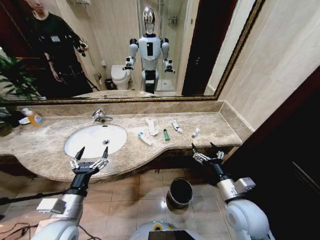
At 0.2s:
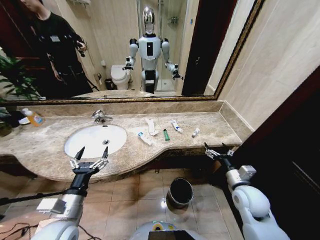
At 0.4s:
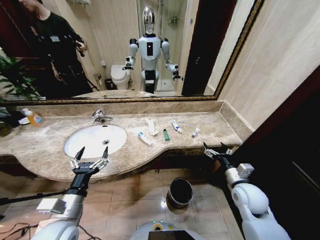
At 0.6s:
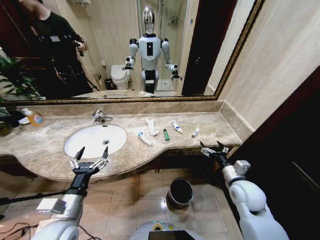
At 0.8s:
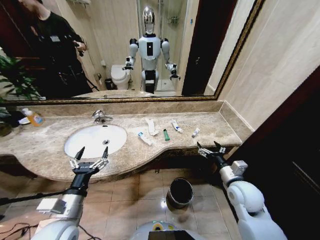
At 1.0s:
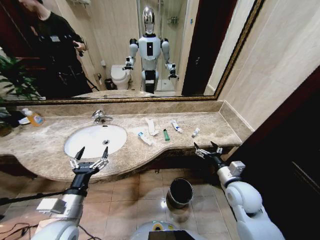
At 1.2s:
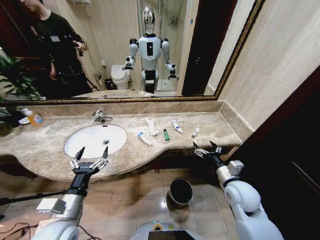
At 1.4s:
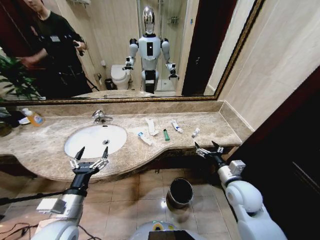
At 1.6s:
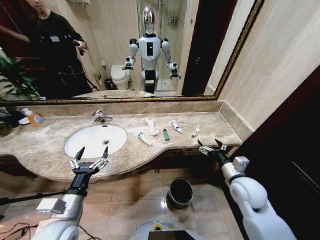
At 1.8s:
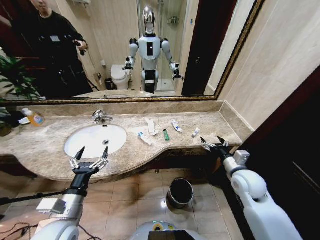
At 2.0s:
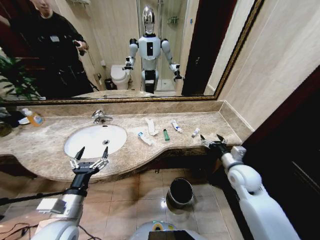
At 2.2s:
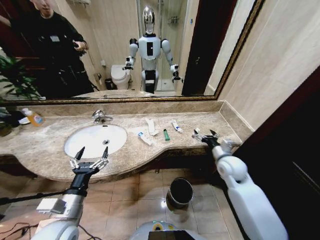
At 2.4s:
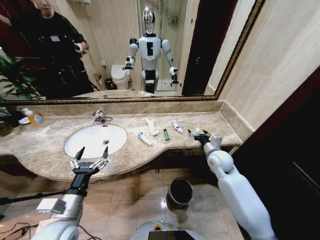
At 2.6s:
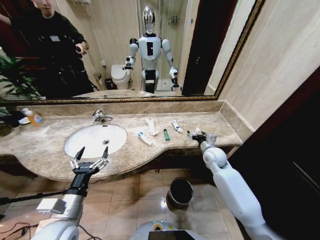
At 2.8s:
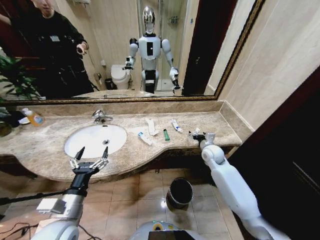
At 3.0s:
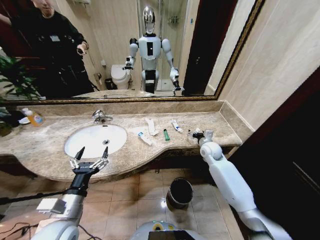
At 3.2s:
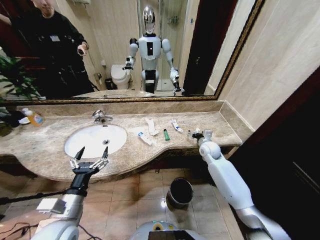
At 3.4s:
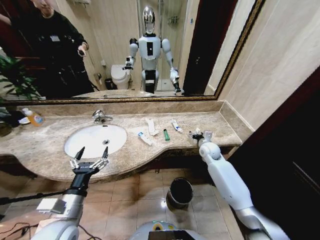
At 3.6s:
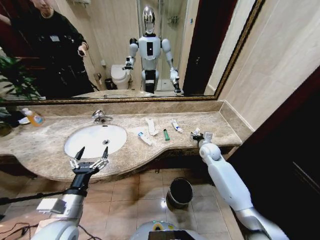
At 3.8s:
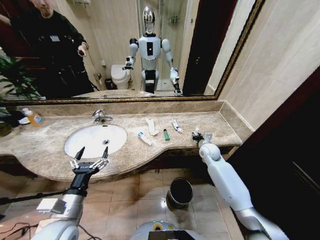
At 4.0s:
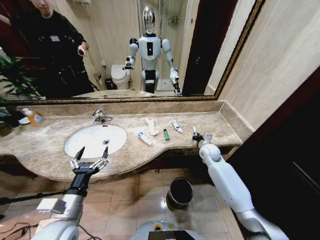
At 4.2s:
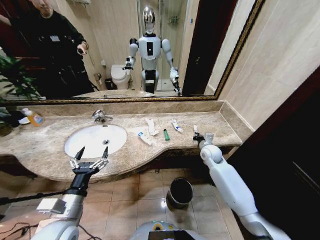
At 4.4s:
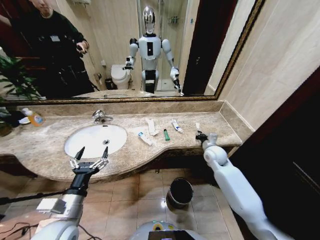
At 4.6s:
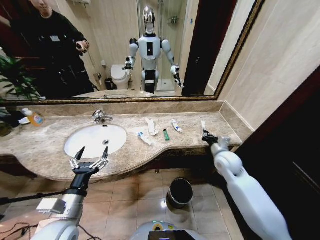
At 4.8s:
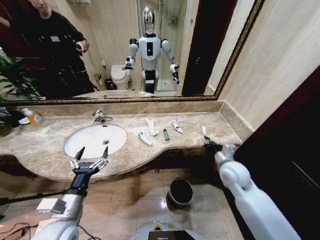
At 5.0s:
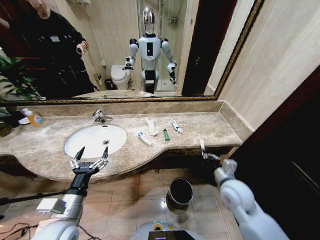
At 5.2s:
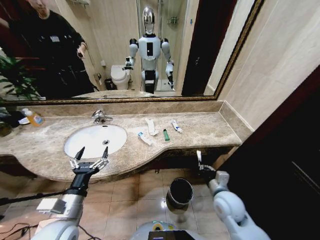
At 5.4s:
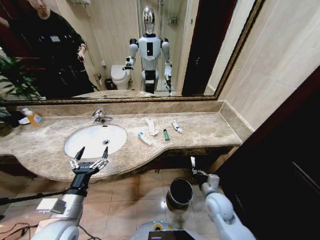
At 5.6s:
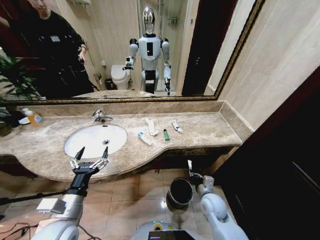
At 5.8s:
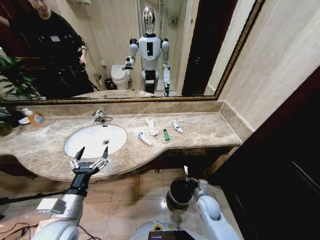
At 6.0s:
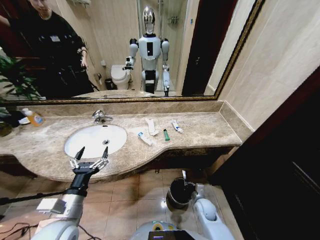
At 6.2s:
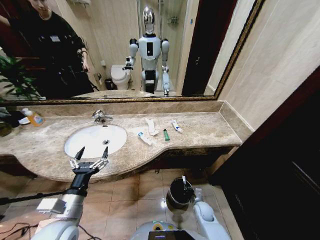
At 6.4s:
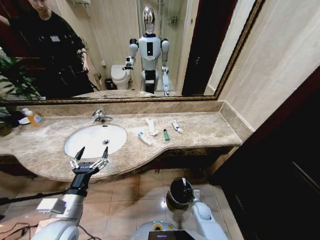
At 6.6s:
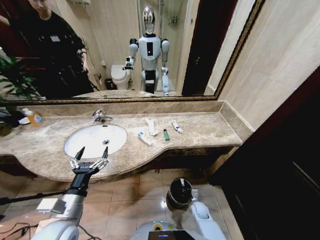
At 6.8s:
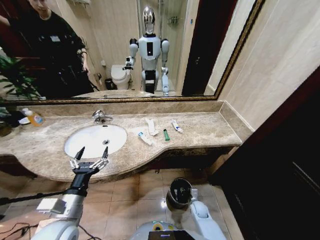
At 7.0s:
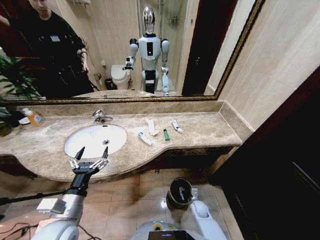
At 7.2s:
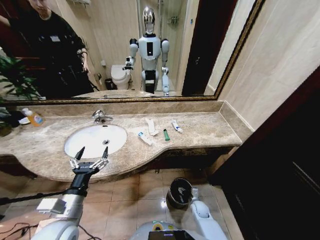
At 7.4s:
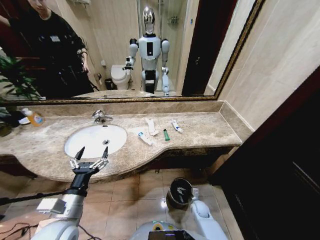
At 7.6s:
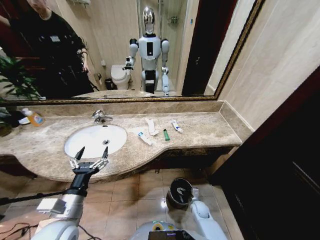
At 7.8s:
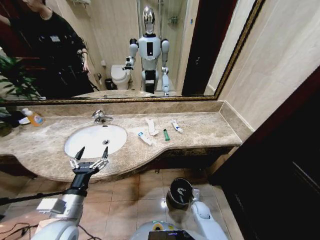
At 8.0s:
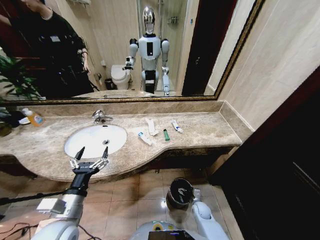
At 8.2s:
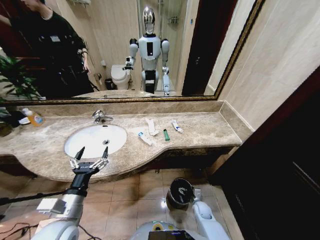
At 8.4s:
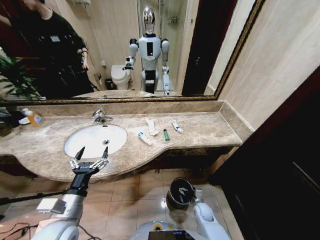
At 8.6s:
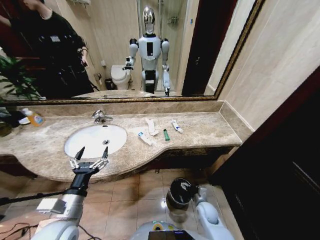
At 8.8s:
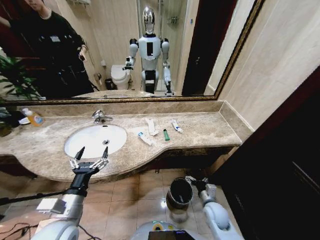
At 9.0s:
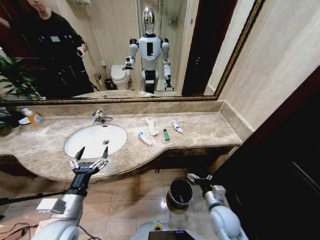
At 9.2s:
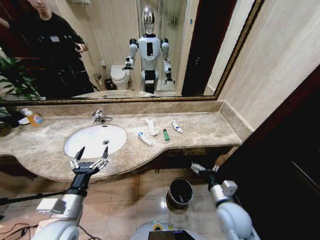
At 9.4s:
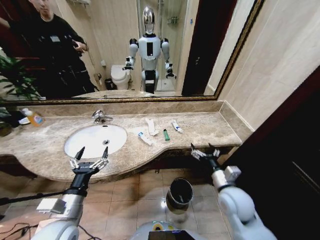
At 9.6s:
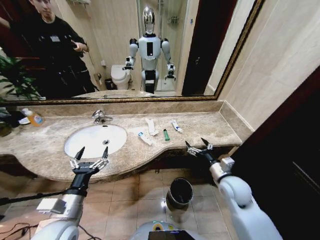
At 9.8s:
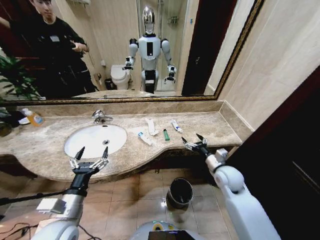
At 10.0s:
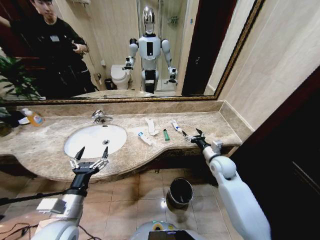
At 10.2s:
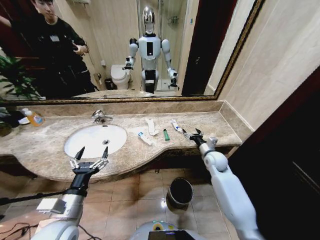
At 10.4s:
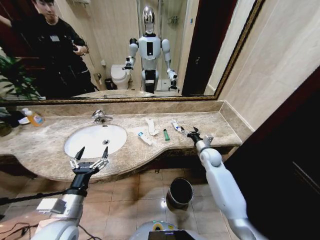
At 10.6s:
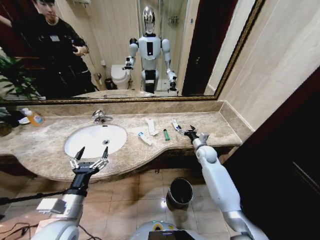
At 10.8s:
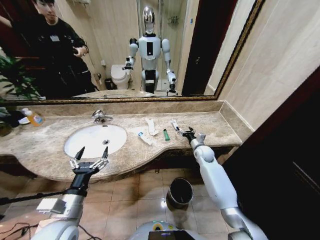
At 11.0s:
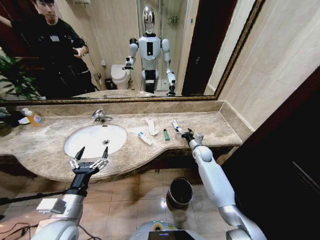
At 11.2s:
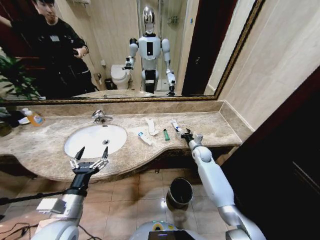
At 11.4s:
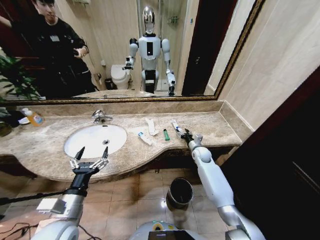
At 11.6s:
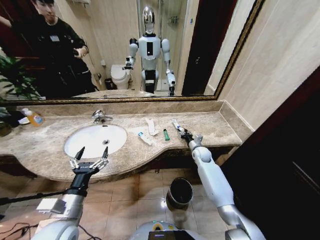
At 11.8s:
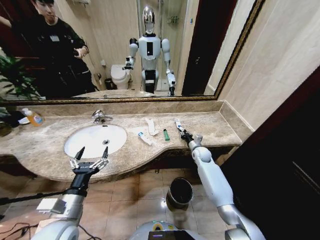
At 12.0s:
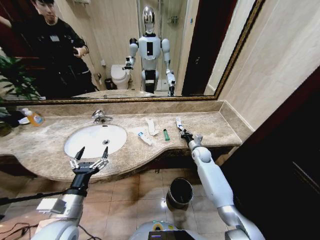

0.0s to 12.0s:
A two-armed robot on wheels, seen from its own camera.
Task of the whole recording: Pick up the trash from the sink and place it in the trash bin.
1.6s to 3.0s: The right gripper heads forward, covering about 20 cm.
3.0s to 4.4s: The right gripper closes its fingers.
4.4s to 6.0s: The right gripper is displaced downward and backward by roughly 30 cm.
6.0s to 7.6s: The right gripper moves downward, roughly 10 cm, and opens up.
7.6s to 9.0s: The right gripper moves upward, some 20 cm.
9.0s to 10.4s: The right gripper is displaced forward by approximately 25 cm.
10.4s to 12.0s: The right gripper ends up about 5 cm from where it was, and closes.

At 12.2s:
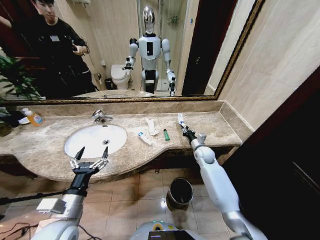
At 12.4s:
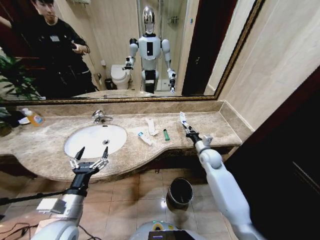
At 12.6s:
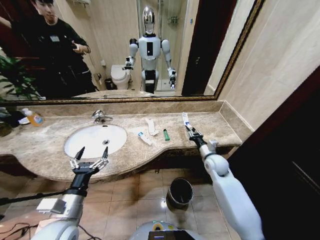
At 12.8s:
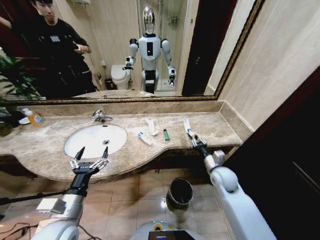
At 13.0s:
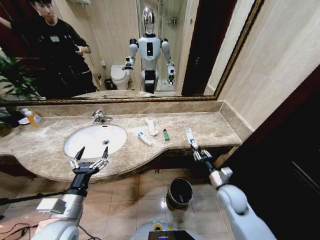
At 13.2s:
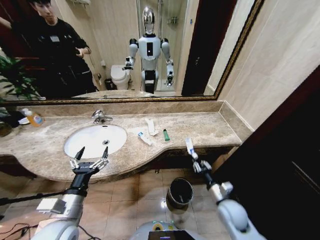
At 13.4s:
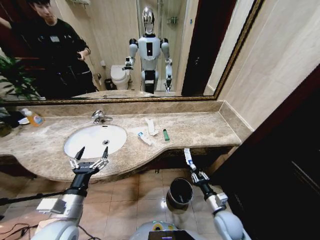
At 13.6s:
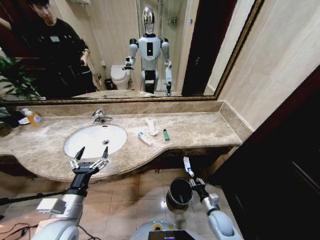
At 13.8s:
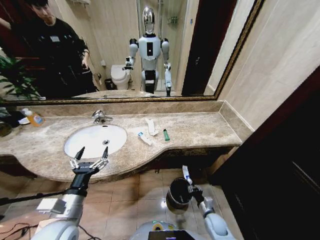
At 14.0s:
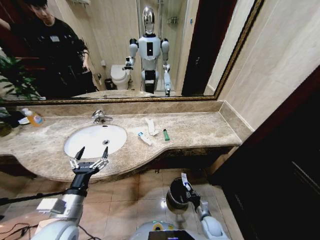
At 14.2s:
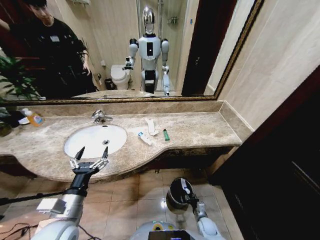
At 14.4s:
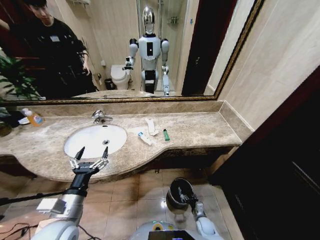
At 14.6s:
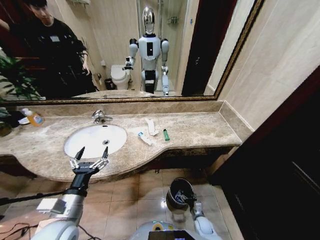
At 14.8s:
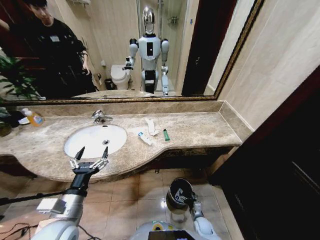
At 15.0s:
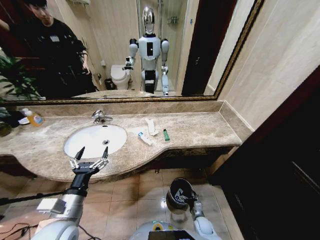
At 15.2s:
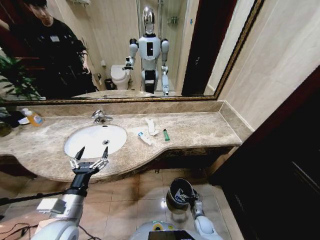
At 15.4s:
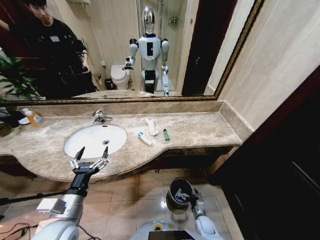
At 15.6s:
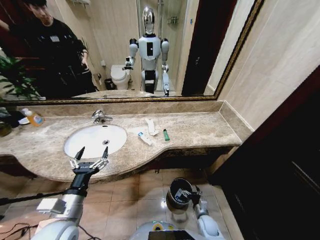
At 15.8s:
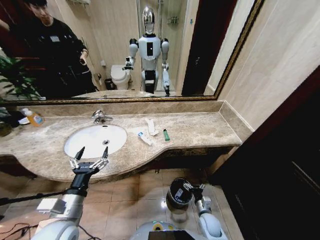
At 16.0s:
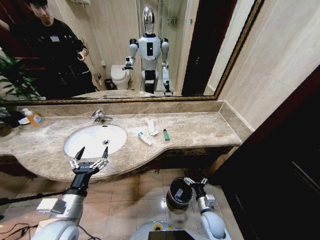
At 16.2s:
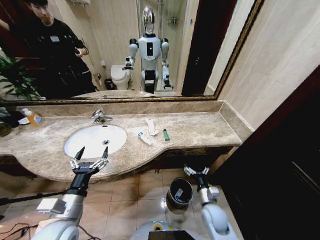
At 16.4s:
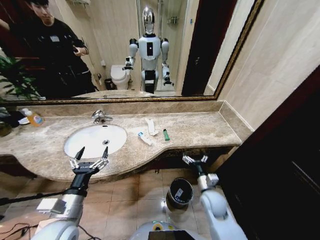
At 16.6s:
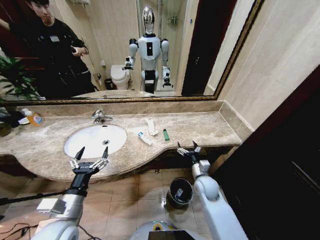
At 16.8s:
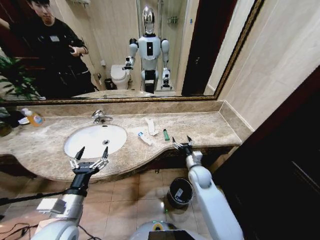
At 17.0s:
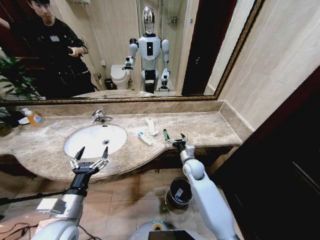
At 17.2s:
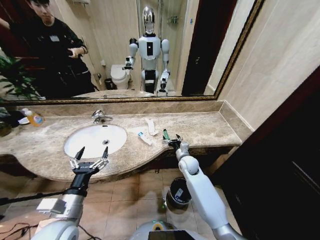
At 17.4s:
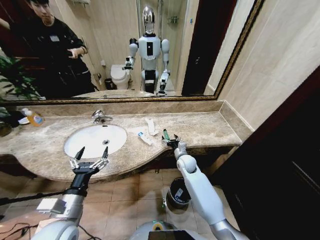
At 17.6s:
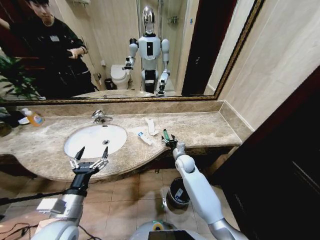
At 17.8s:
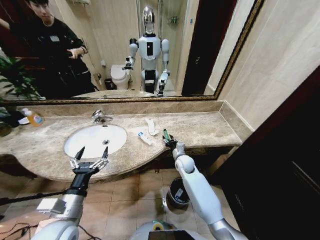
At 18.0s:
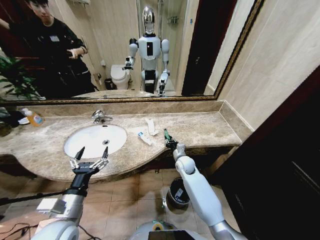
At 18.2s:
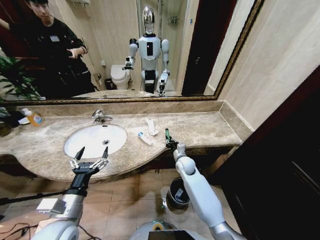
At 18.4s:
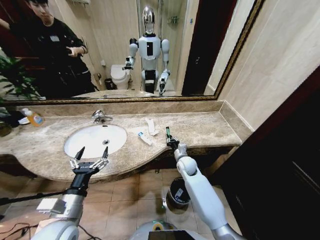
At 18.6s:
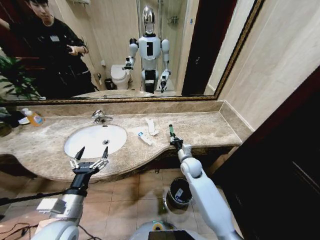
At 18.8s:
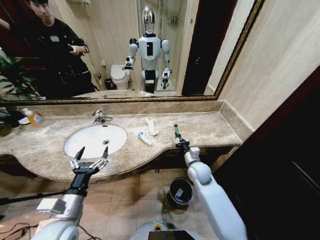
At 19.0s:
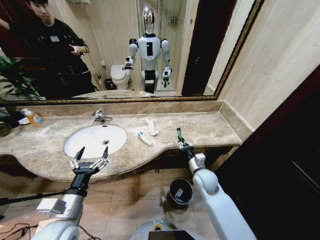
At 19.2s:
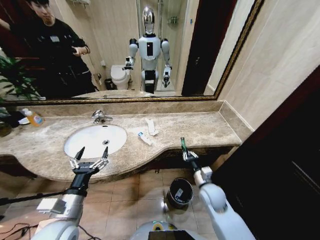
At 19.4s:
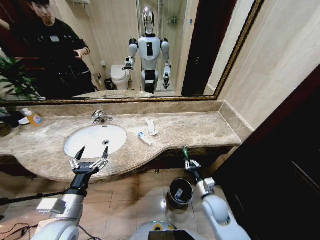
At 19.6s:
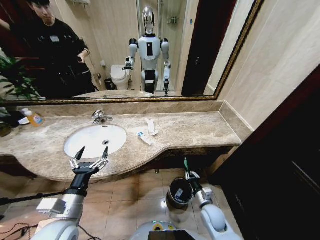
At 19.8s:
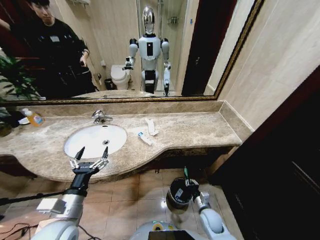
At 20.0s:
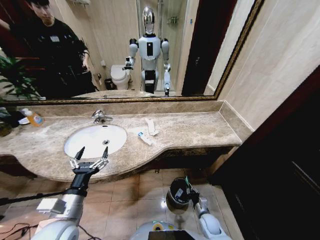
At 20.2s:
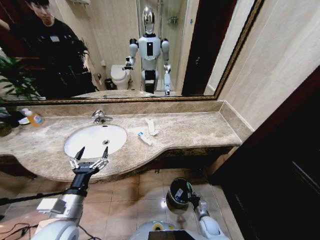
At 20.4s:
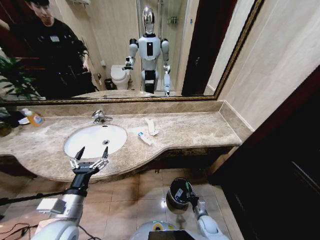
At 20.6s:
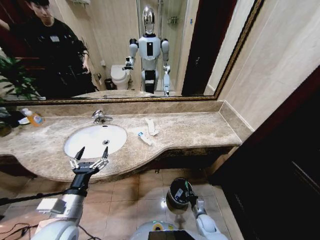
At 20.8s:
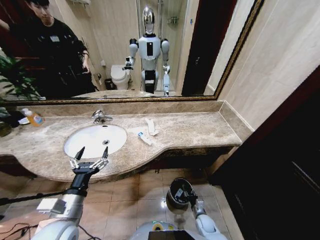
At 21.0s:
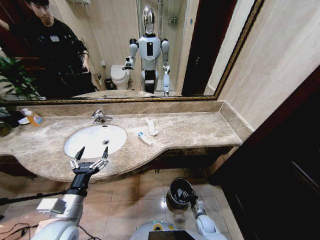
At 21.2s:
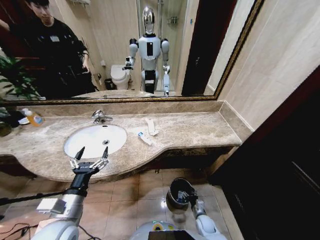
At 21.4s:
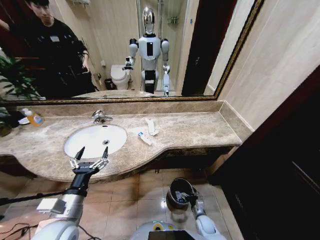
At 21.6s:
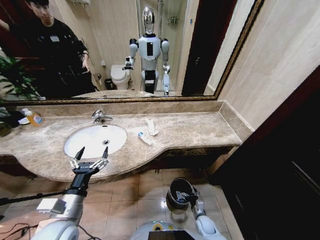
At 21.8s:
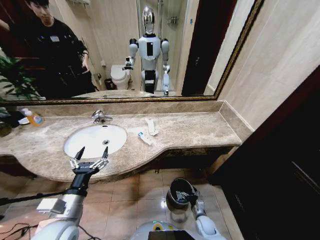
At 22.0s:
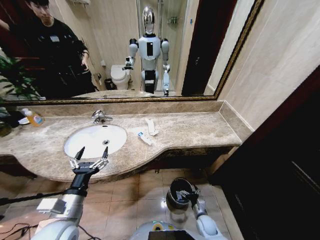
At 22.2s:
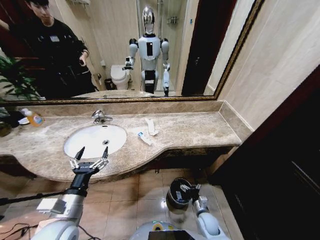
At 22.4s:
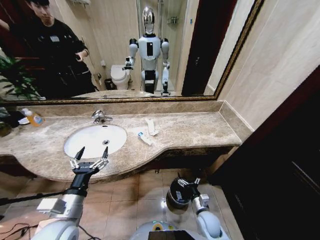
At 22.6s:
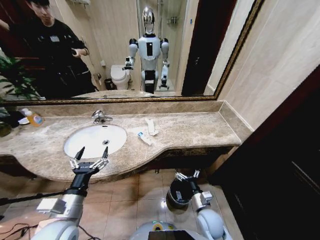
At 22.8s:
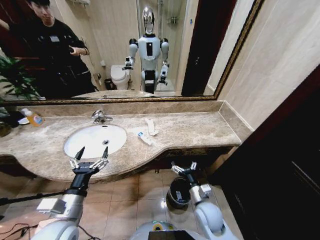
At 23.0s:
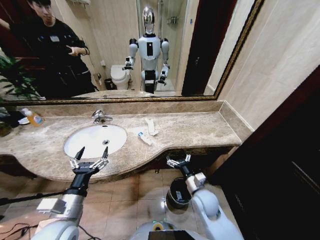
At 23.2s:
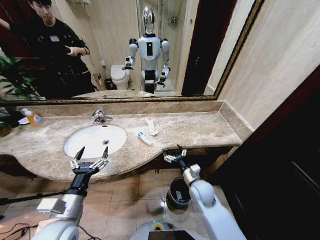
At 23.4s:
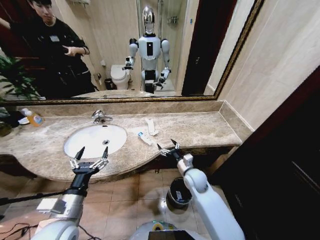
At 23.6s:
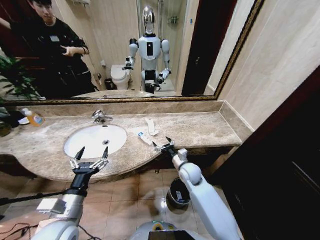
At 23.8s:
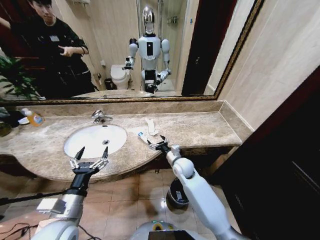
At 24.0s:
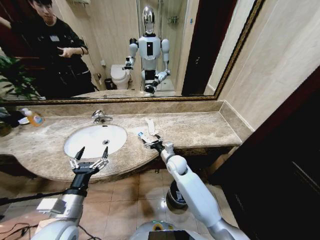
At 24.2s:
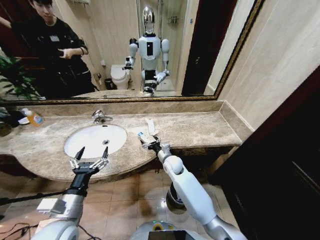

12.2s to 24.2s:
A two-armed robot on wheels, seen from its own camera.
Task of the whole recording: Pick up the trash from the sink and place it in the trash bin.
12.2s to 13.8s: The right gripper is displaced backward and downward by some 35 cm.
13.8s to 15.2s: The right gripper heads downward, covering some 5 cm, and opens.
15.2s to 16.6s: The right gripper travels upward and forward by some 30 cm.
16.6s to 18.2s: The right gripper goes about 15 cm forward and to the left, and closes up.
18.2s to 19.8s: The right gripper travels backward, downward and to the right by approximately 25 cm.
19.8s to 21.2s: The right gripper heads downward, covering roughly 10 cm, and opens its fingers.
21.2s to 22.6s: The right gripper travels upward by approximately 20 cm.
22.6s to 24.2s: The right gripper heads forward and to the left, covering some 25 cm.
